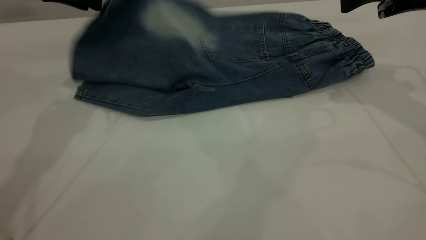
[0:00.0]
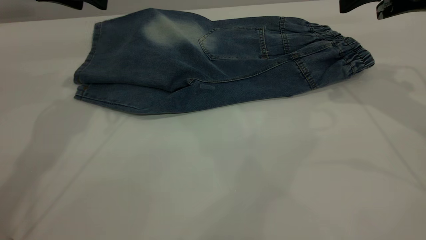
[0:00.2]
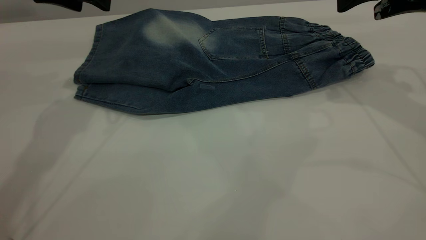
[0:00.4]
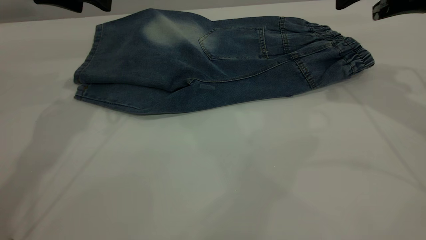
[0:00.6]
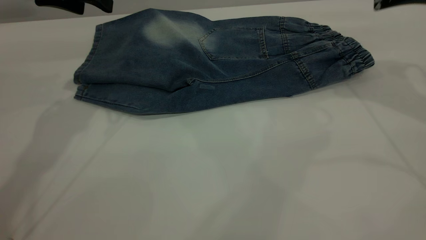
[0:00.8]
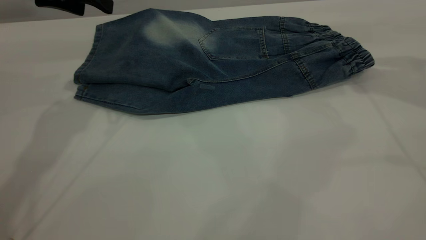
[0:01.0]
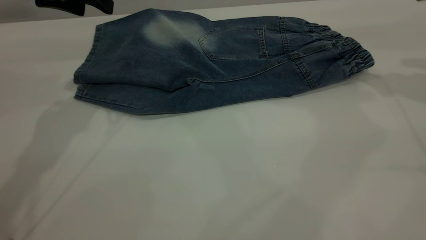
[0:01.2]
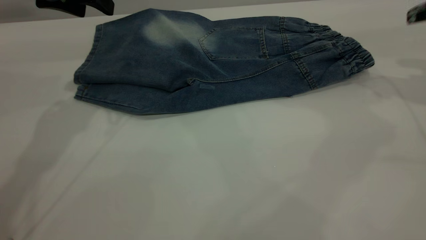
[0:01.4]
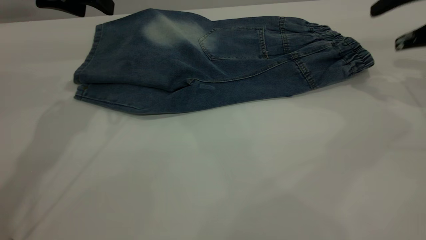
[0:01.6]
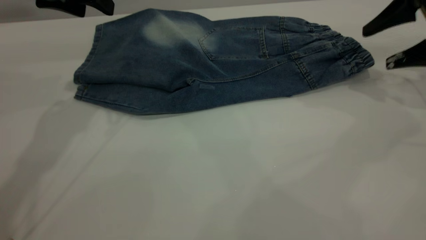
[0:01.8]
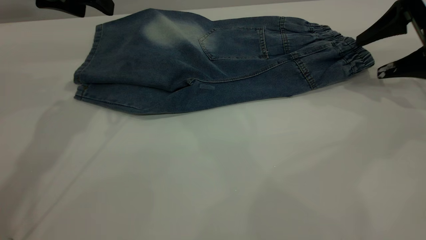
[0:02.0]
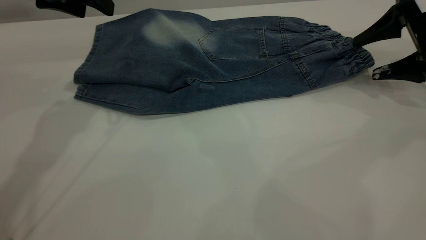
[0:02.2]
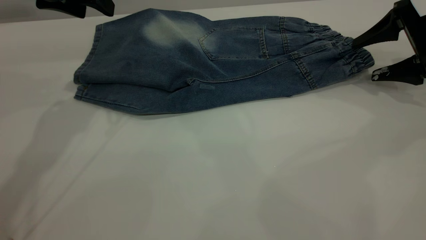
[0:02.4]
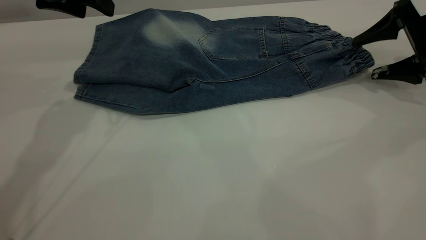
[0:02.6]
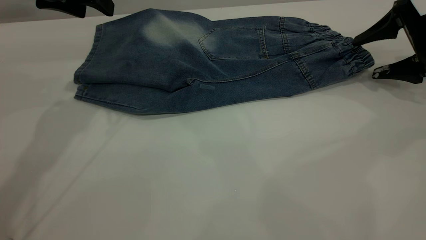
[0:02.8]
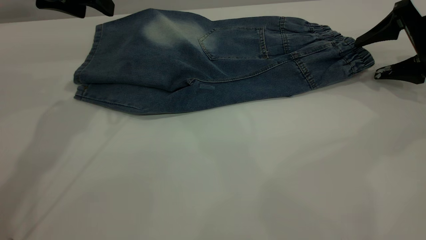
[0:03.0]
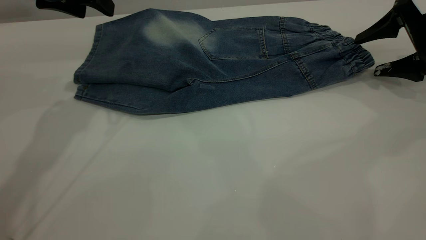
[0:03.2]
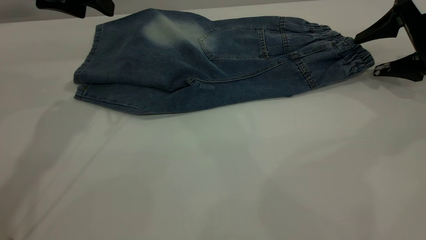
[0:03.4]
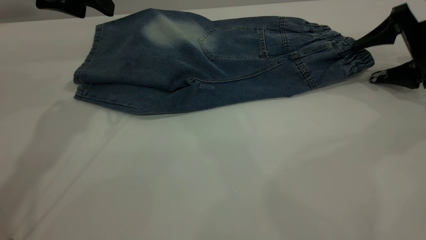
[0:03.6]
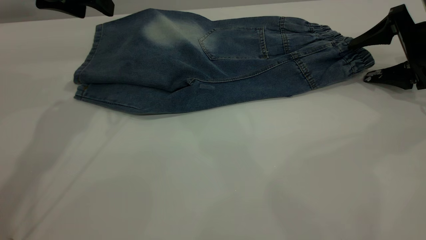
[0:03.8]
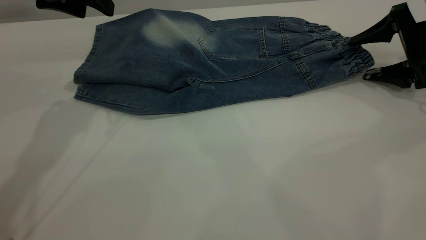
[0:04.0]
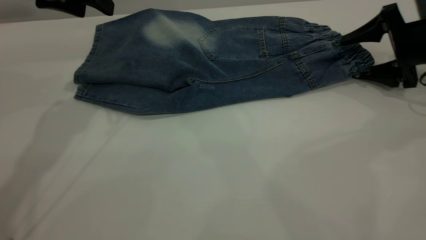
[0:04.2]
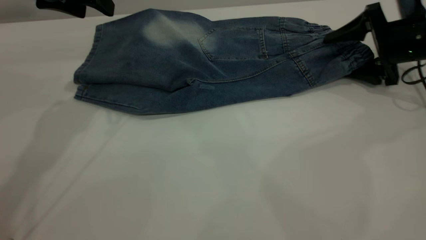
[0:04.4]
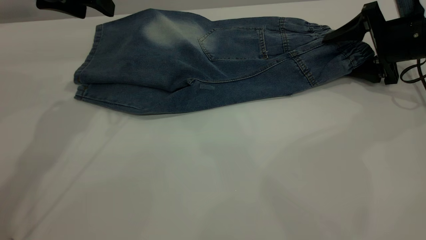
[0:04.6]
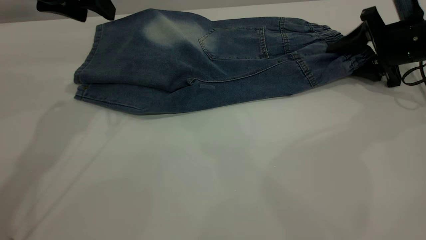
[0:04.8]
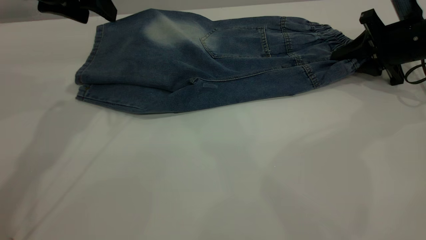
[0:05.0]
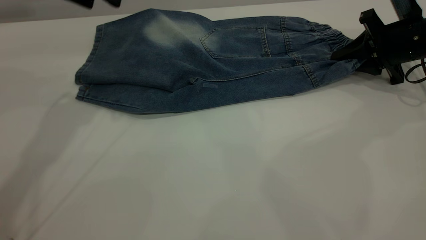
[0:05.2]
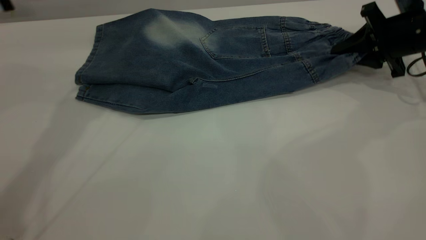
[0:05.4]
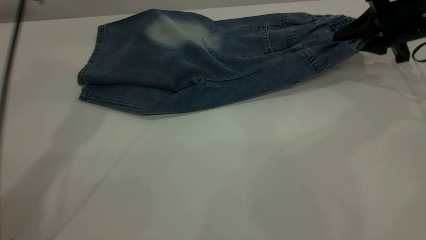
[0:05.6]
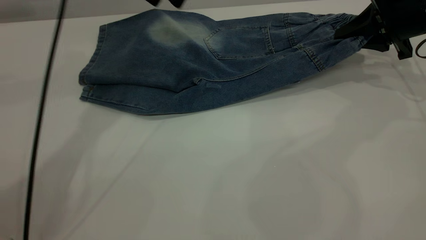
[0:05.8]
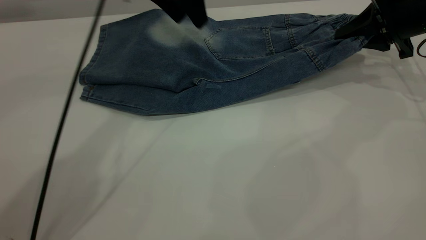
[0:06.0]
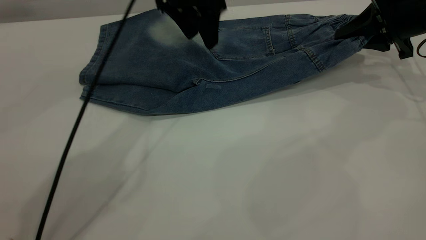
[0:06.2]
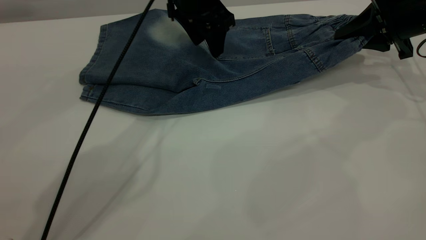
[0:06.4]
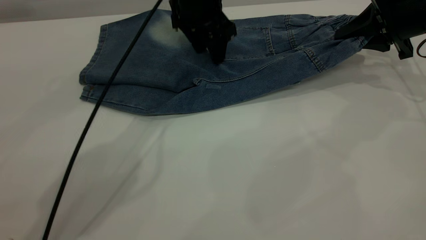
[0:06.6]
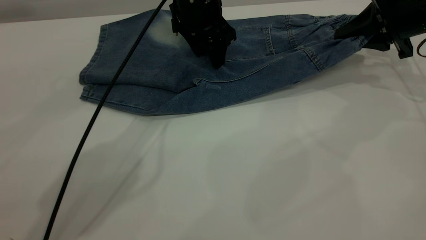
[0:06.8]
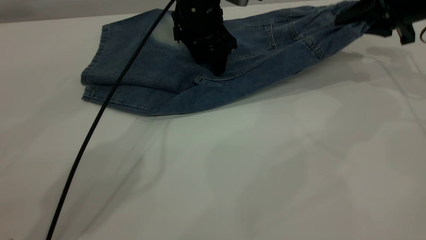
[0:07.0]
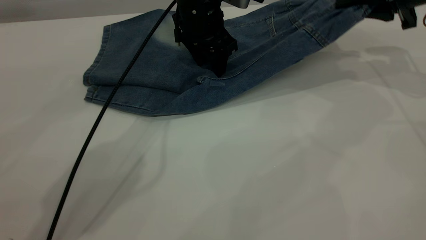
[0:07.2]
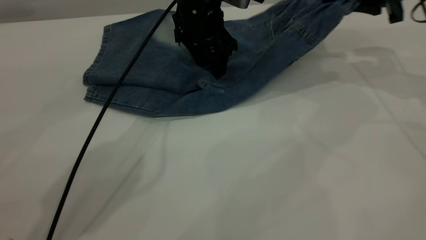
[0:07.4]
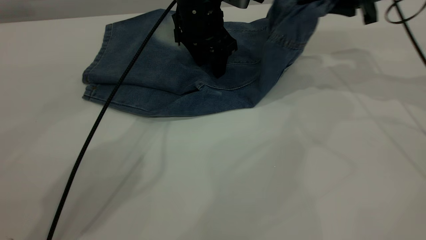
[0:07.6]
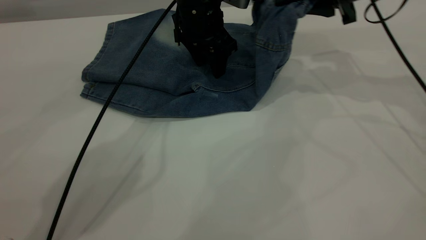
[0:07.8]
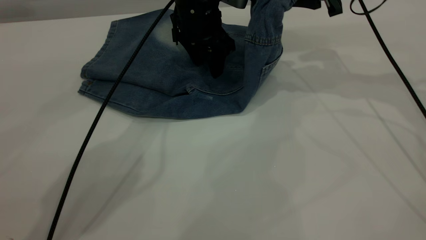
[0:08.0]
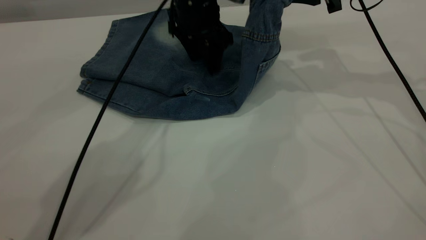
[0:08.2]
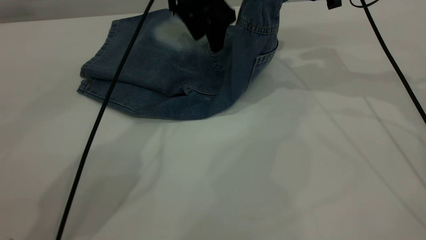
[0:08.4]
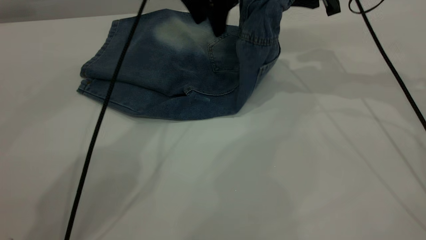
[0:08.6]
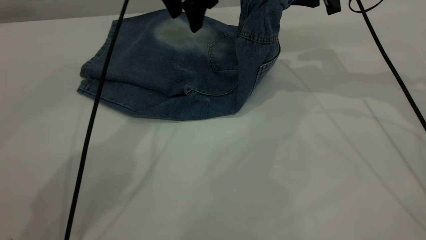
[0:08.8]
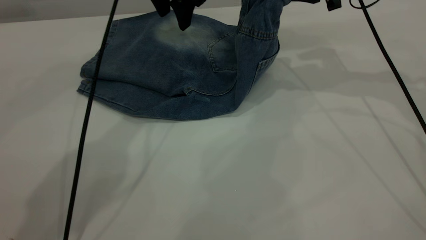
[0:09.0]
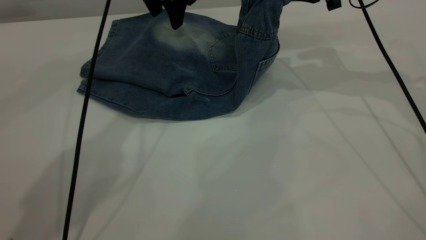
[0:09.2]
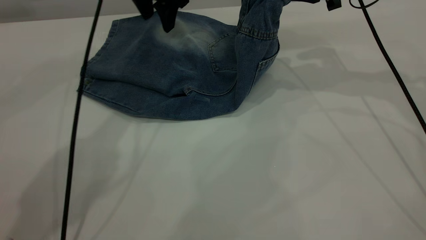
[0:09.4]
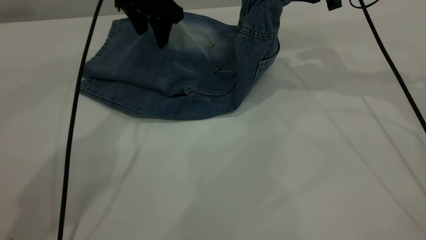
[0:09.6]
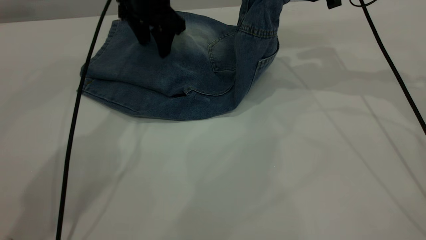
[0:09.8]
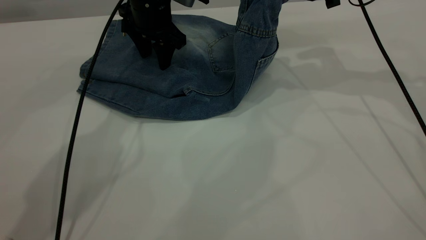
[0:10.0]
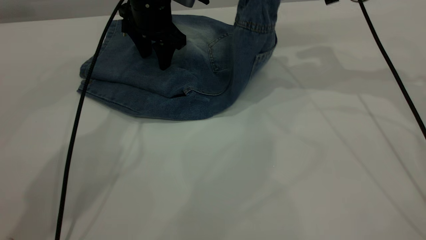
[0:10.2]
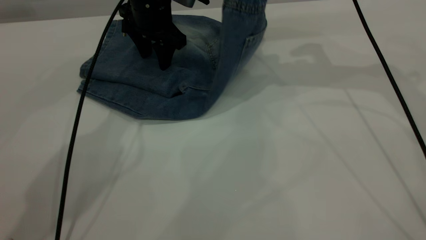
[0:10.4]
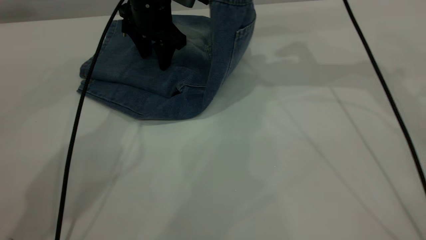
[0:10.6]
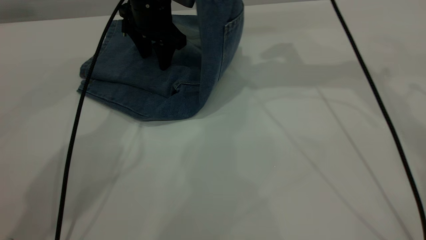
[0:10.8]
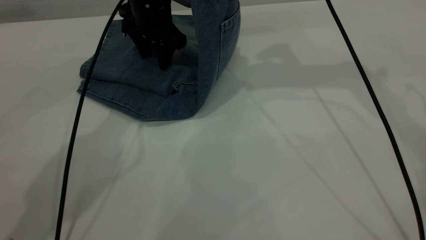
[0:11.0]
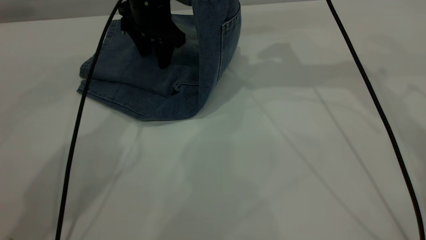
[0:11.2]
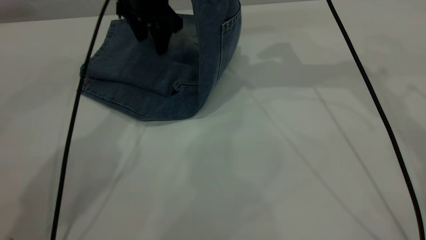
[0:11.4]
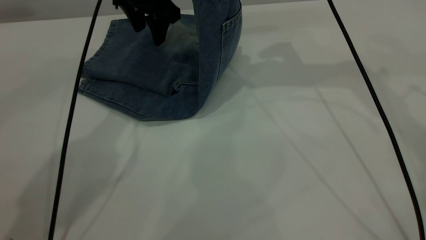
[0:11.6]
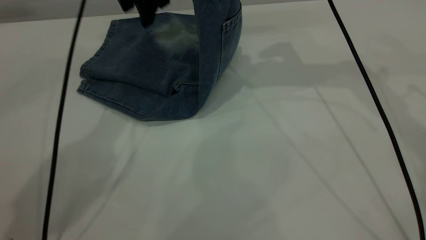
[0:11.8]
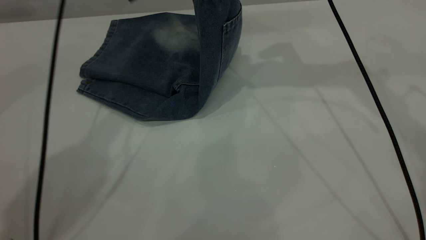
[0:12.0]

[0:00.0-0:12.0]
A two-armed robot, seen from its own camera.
0:00.0 to 0:01.6: The left gripper opens up, while the right gripper heads to the right, covering roughly 10 cm.
0:01.6 to 0:03.0: The right gripper goes roughly 5 cm downward.
0:03.0 to 0:04.4: The right gripper moves roughly 5 cm.
0:04.4 to 0:06.0: The right gripper closes its fingers, while the left gripper moves to the right and forward, some 15 cm.
0:06.0 to 0:07.6: The left gripper is displaced downward by some 10 cm, while the right gripper travels to the left and upward by about 10 cm.
0:07.6 to 0:09.0: The left gripper travels upward by roughly 5 cm.
0:09.0 to 0:10.4: The left gripper travels downward by approximately 10 cm.
0:10.4 to 0:12.0: The left gripper heads upward, covering approximately 15 cm.

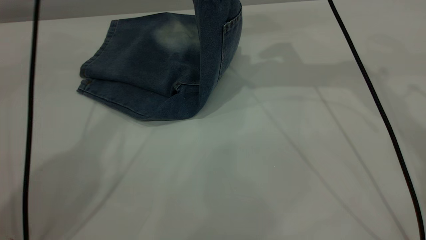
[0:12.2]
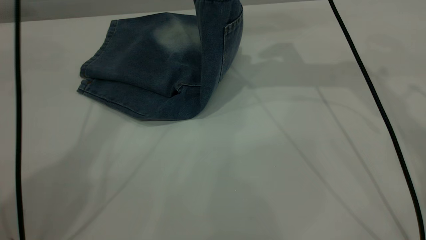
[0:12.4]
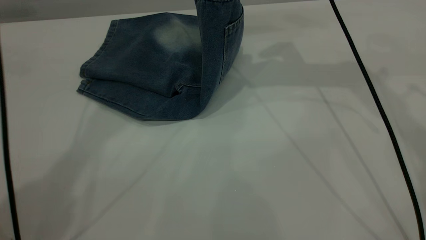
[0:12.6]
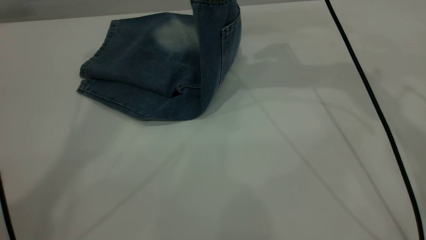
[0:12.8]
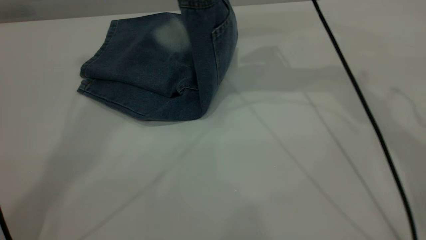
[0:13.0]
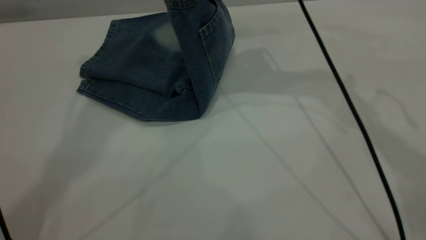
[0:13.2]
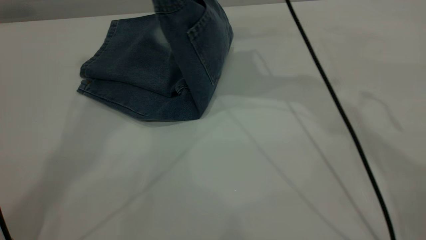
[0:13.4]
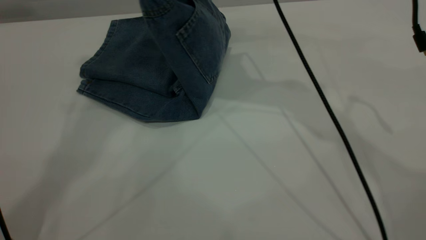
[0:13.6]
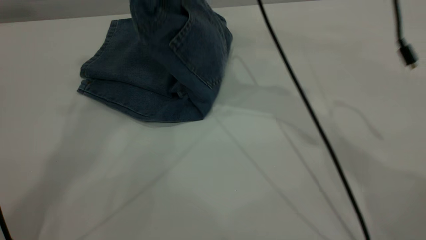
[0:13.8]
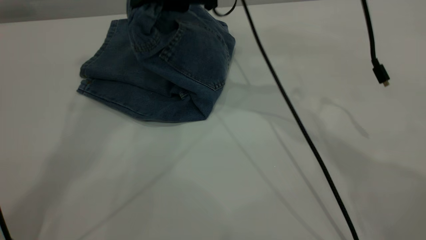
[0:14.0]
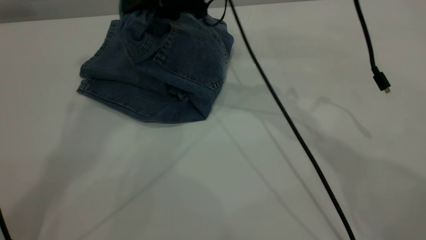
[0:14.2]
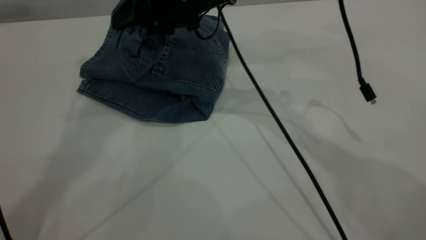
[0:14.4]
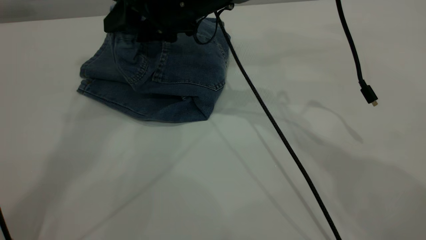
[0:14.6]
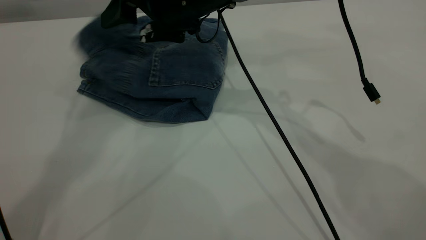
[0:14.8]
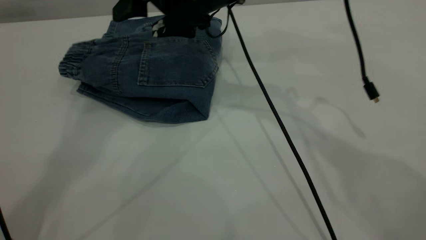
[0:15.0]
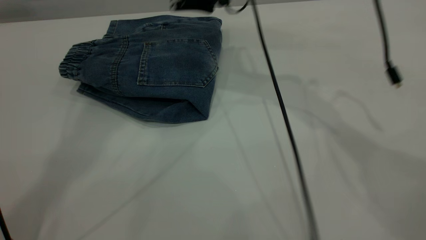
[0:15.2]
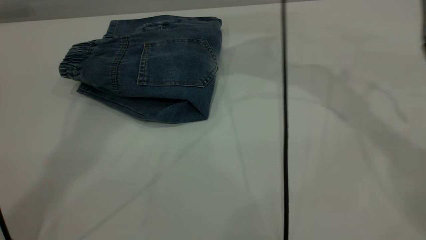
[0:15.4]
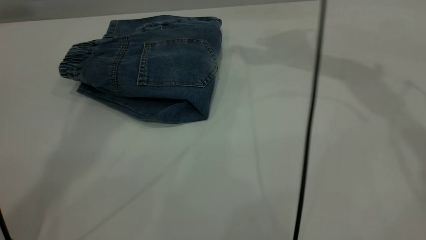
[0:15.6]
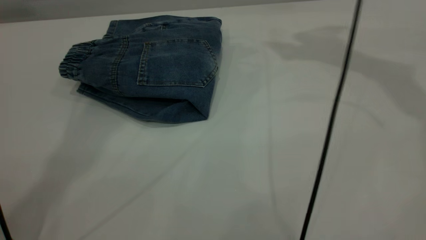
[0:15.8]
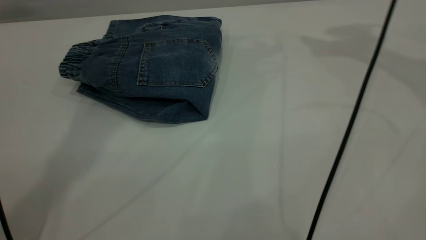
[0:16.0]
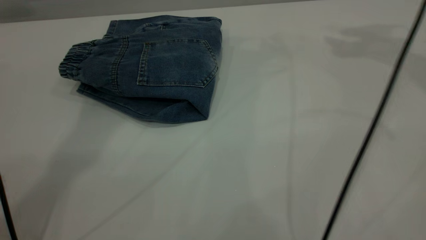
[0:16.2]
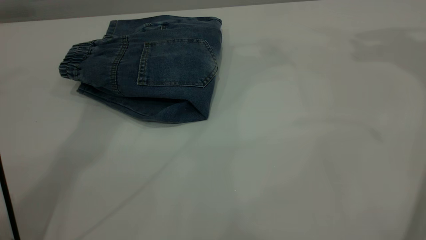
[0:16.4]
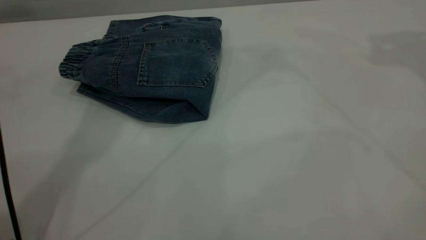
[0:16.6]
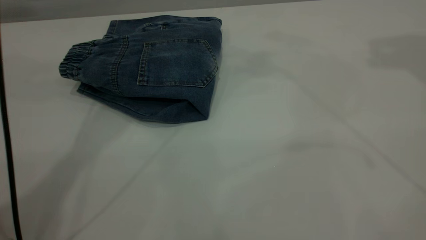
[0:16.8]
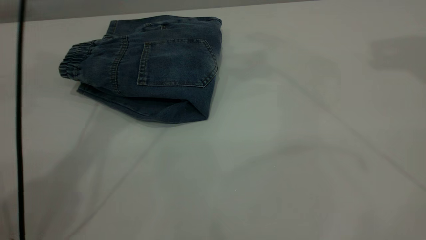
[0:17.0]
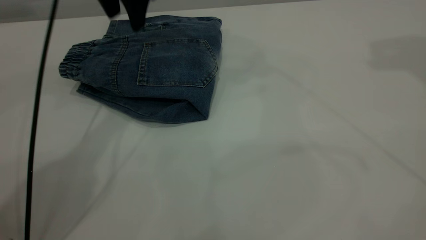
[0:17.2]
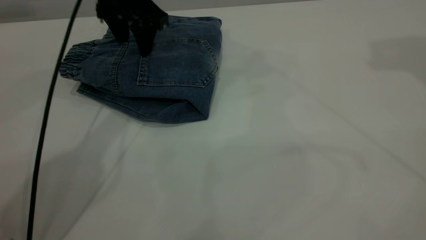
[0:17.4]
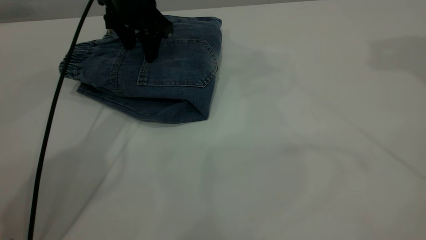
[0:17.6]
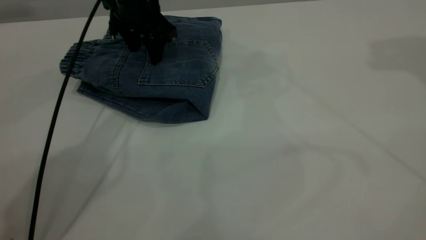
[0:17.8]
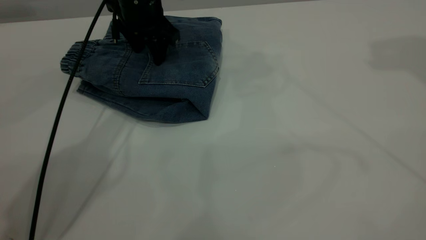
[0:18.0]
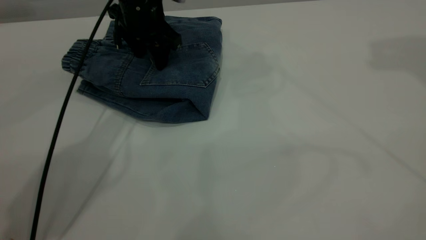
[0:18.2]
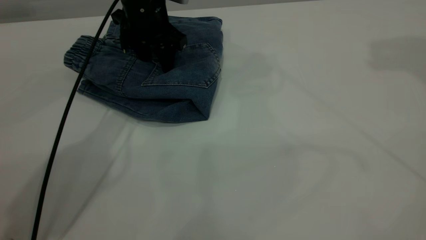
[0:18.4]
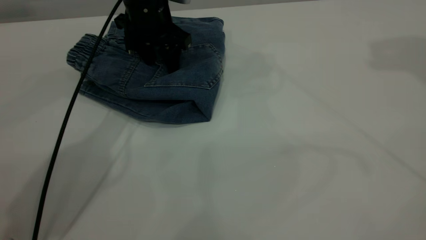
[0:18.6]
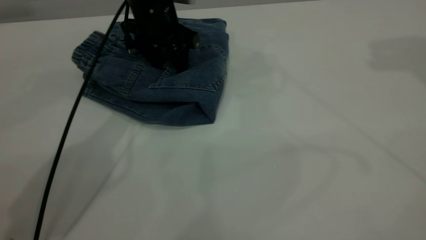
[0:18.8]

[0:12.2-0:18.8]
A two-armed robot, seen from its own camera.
Step, 0:12.2 to 0:15.0: Fold your pants from right to left.
0:12.2 to 0:13.8: The right gripper goes about 10 cm to the left. Meanwhile the left gripper travels upward and backward by some 20 cm.
0:13.8 to 0:15.4: The right gripper moves to the right and forward, about 10 cm, and opens up.
0:15.4 to 0:17.2: The right gripper goes some 30 cm upward and to the right. The left gripper shifts approximately 30 cm downward.
0:17.2 to 0:18.8: The left gripper goes approximately 10 cm downward.
